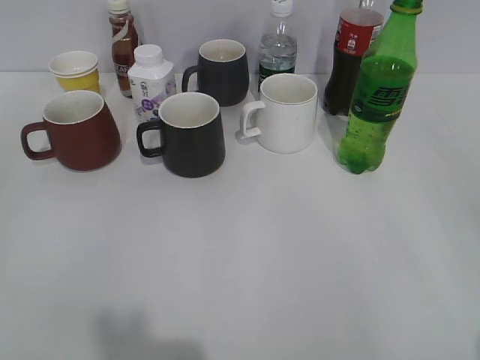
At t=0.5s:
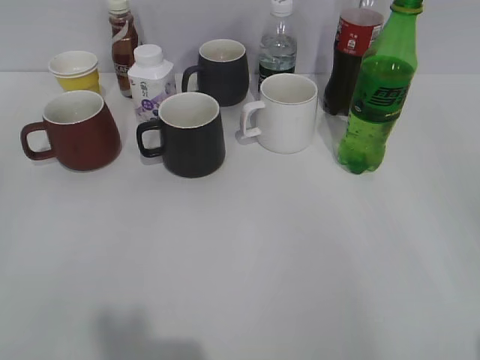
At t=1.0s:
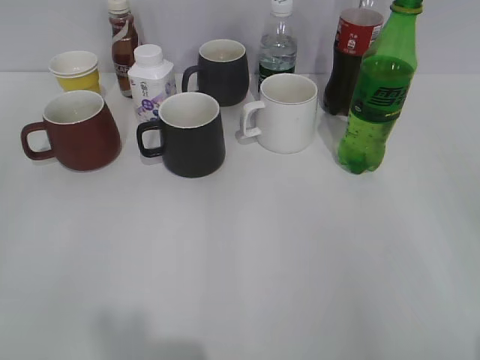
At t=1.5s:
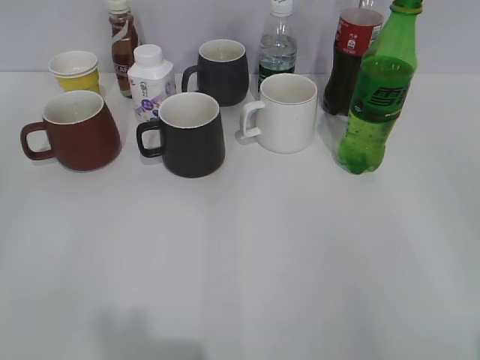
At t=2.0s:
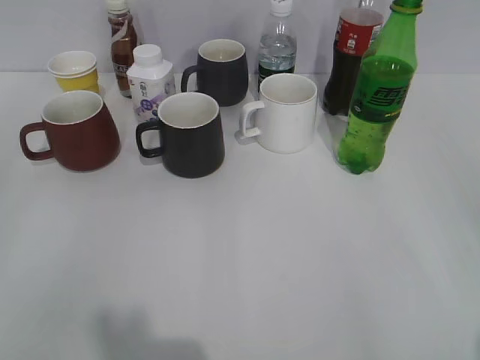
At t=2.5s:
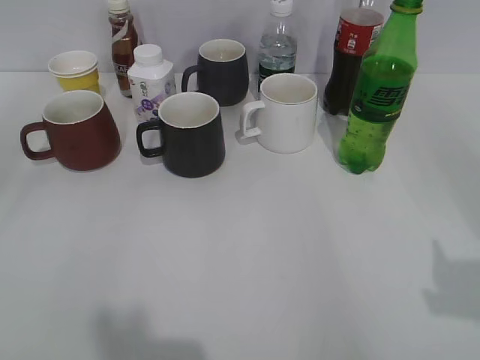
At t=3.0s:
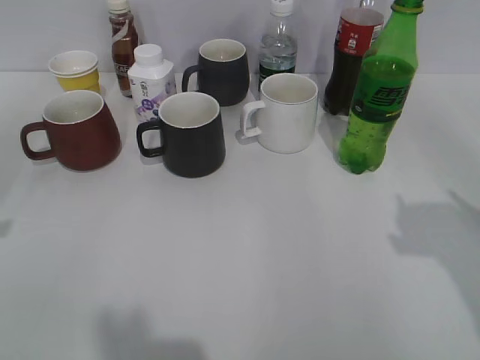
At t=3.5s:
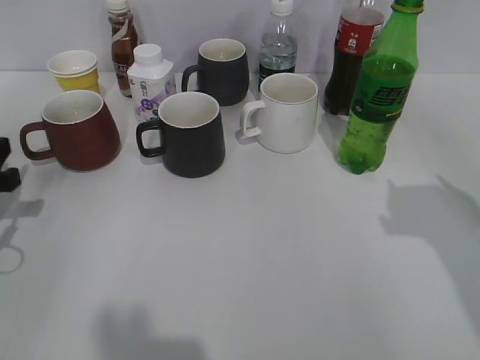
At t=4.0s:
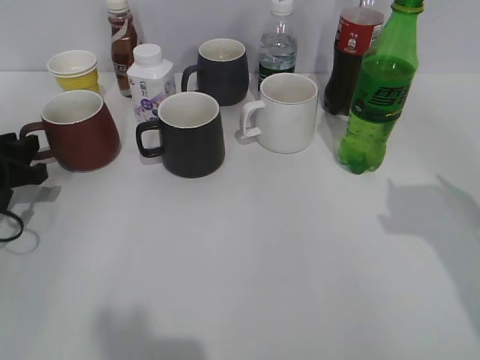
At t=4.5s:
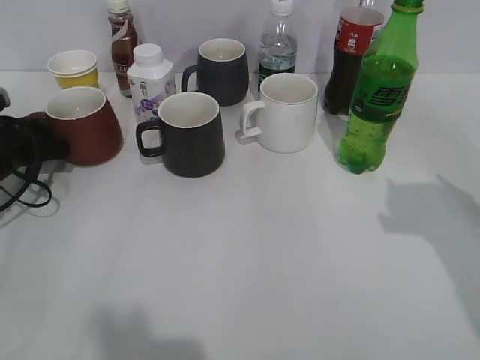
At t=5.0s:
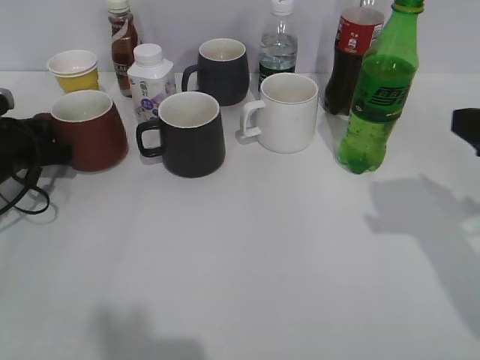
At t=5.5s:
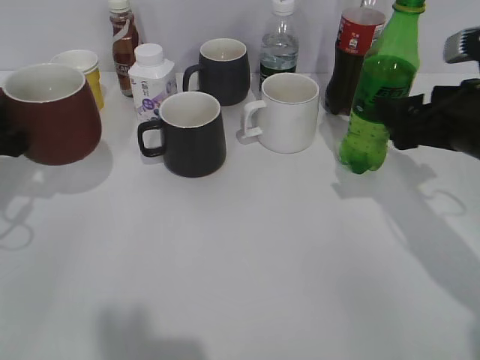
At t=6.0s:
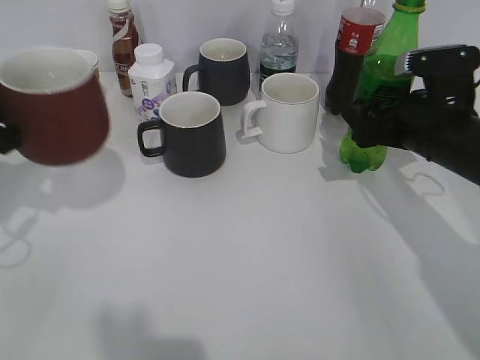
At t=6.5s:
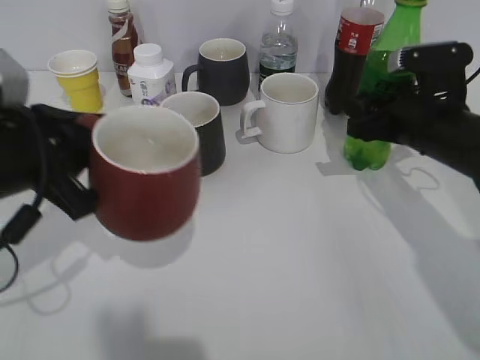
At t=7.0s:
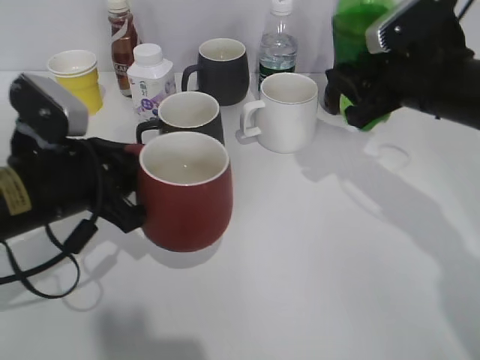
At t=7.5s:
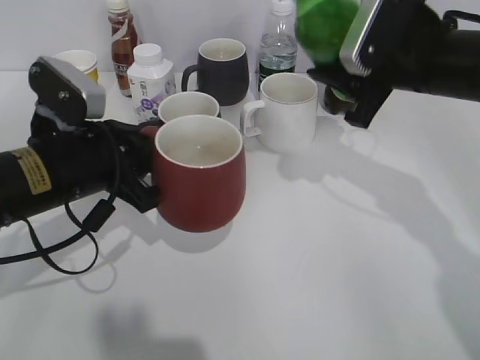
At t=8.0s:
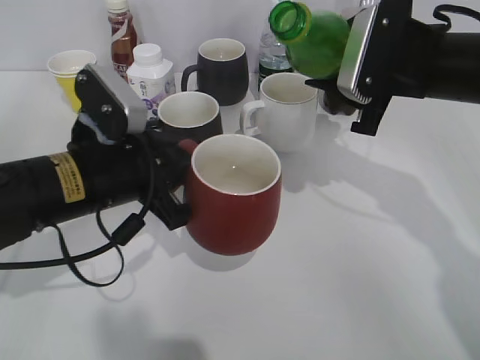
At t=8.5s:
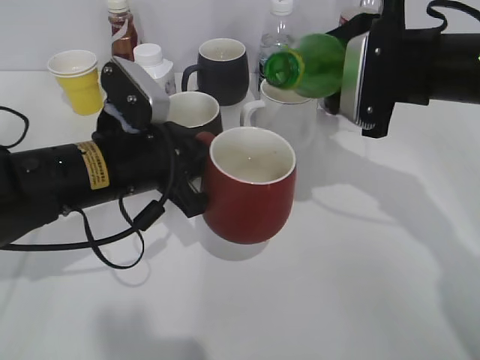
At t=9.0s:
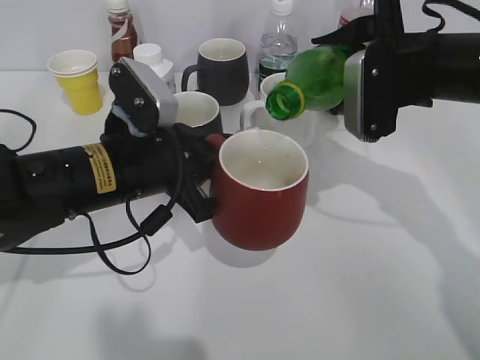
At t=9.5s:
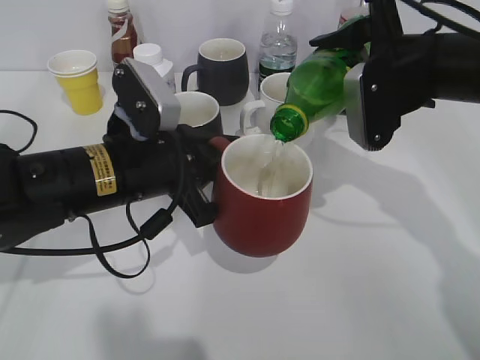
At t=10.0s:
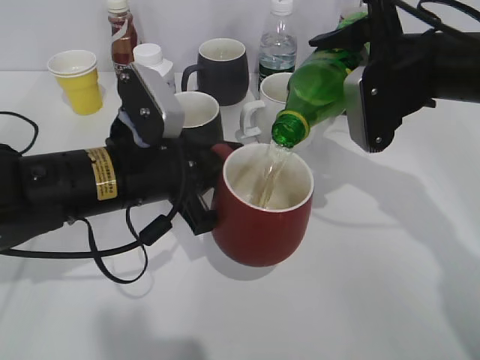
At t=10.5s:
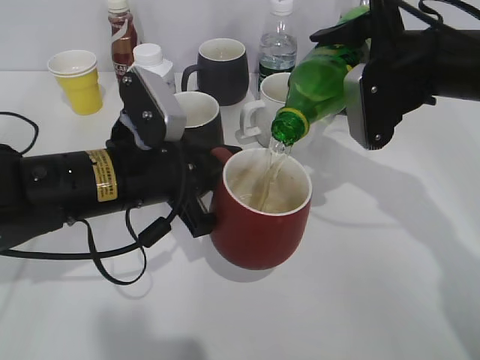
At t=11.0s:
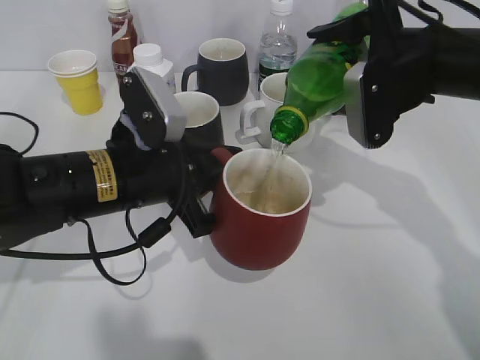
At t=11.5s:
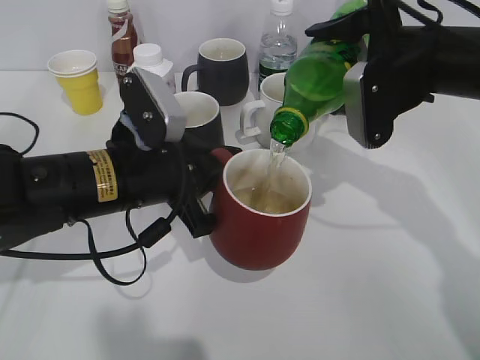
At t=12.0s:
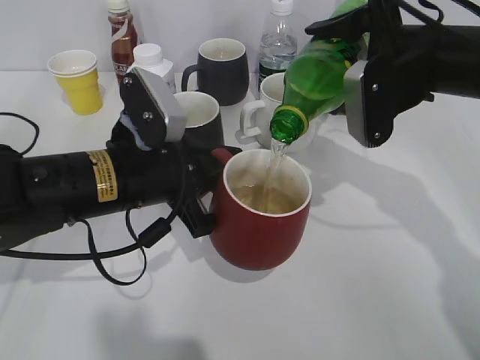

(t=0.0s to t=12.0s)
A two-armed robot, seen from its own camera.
Step, t=2.0s - t=4.5s: Grasp the red cup with left gripper.
Step, t=5.0s - t=6.0s: Grasp the bottle with sprite with right gripper.
t=2.0s - t=4.0s: The right gripper moves forward, roughly 20 cm. The left gripper moves forward and downward, approximately 35 cm.
t=4.0s - t=6.0s: The right gripper heads forward, downward and to the left, covering approximately 20 cm; the left gripper heads upward, covering some 10 cm, and closes up.
t=6.0s - t=8.0s: The left gripper moves to the right, roughly 15 cm, while the right gripper travels upward by roughly 10 cm, and closes up.
t=10.0s - t=12.0s: Both grippers stay about where they are.

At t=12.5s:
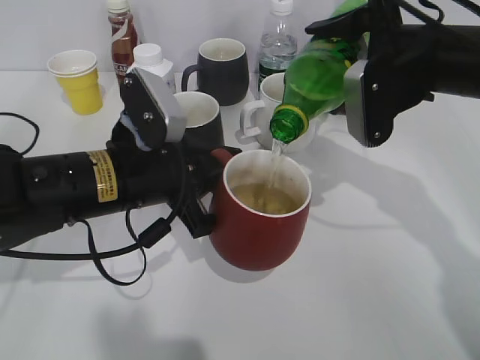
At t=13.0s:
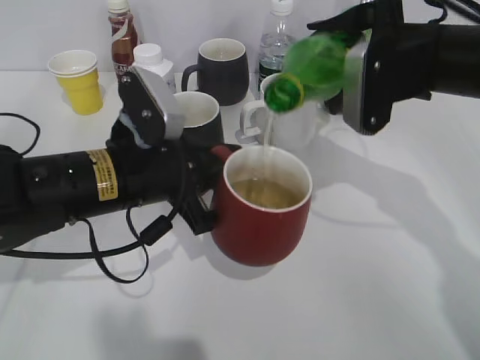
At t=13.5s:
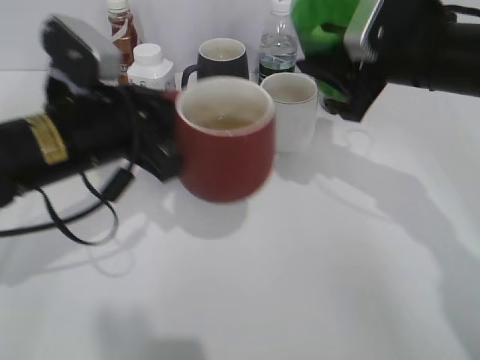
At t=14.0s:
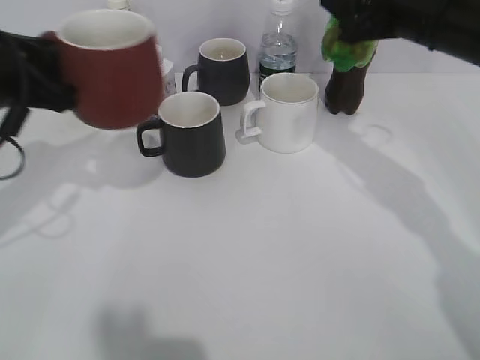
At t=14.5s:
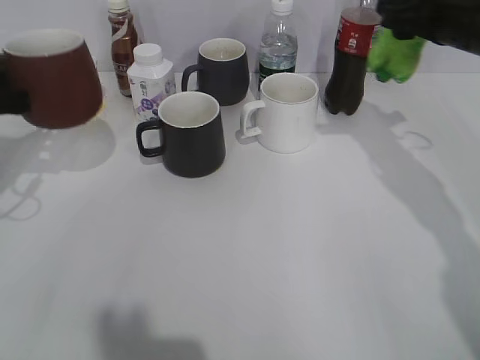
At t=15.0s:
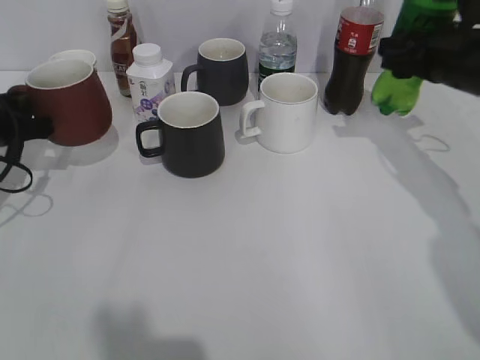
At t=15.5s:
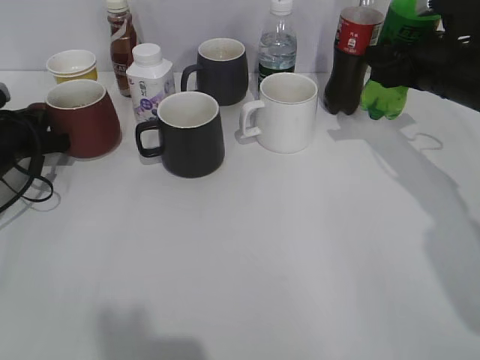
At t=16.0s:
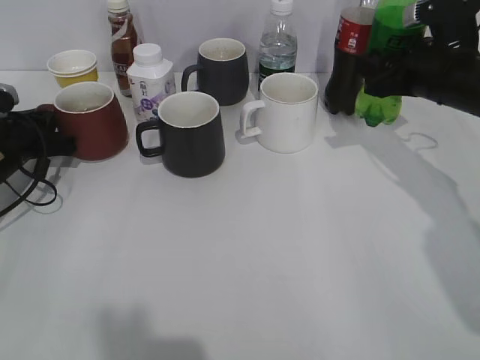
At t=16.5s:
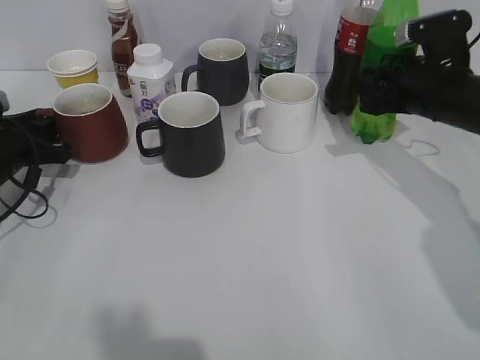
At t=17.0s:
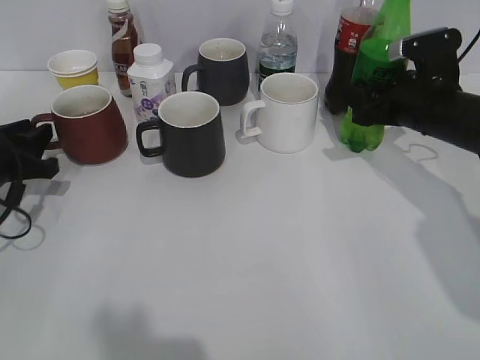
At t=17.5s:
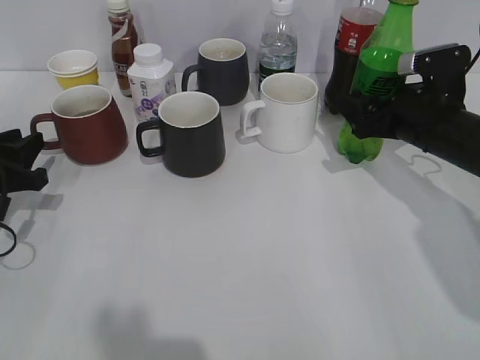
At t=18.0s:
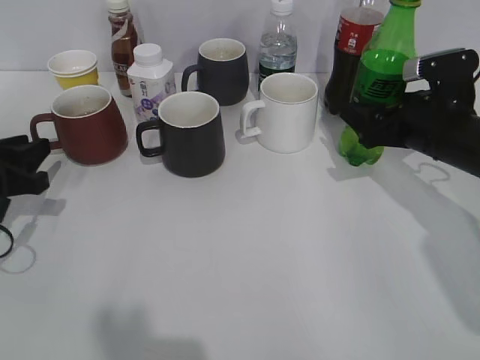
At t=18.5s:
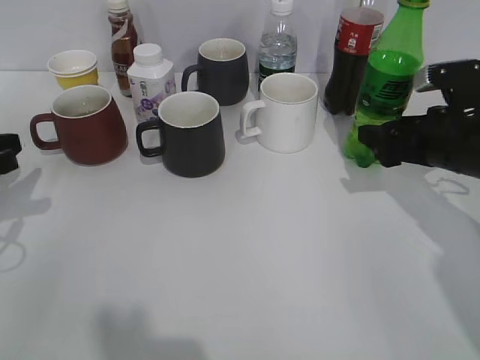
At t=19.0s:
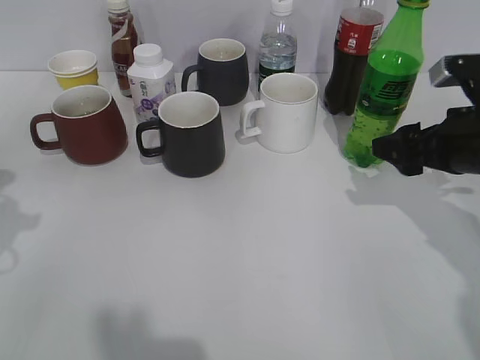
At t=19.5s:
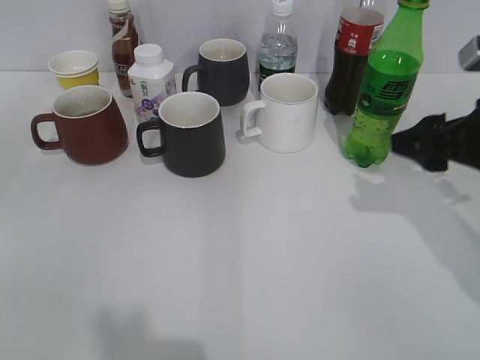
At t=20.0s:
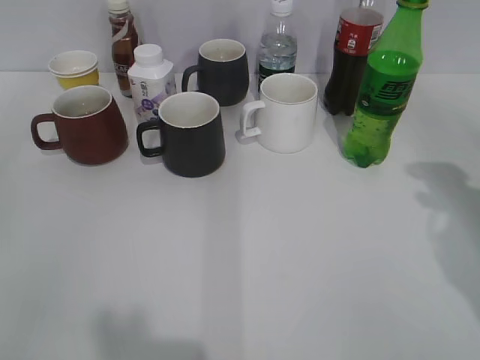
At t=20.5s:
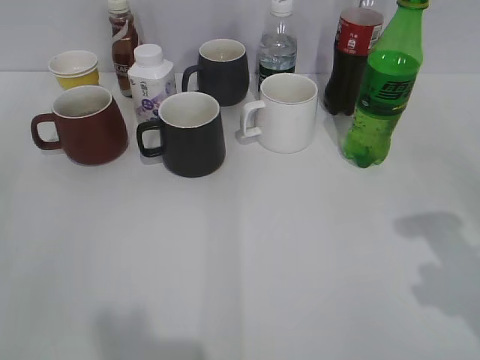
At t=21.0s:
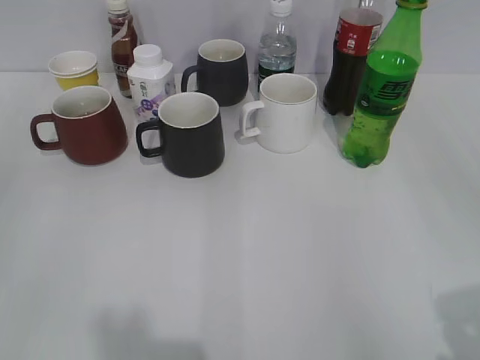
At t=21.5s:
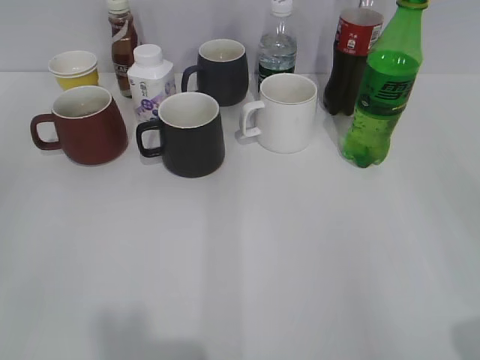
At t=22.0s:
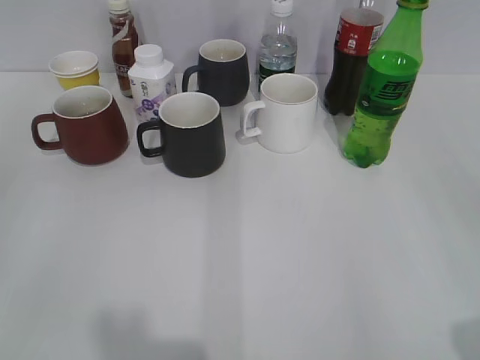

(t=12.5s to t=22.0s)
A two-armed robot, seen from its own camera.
Step, t=13.5s - t=14.0s: Place the red cup on the table with left gripper.
Step, t=14.5s - t=18.5s: Place the sprite bottle on the table with right gripper.
t=12.5s - t=14.5s: The left gripper goes about 20 cm to the left, while the right gripper travels to the right by about 5 cm.
t=14.5s - t=16.5s: The two grippers go approximately 10 cm downward. The left gripper opens.
t=16.5s - t=18.0s: The right gripper opens its fingers; the left gripper heads backward, covering approximately 5 cm.
t=18.0s - t=20.0s: The right gripper heads backward, upward and to the right, covering some 15 cm; the left gripper travels backward and upward by about 30 cm.
t=20.0s - t=22.0s: The right gripper goes some 25 cm backward.

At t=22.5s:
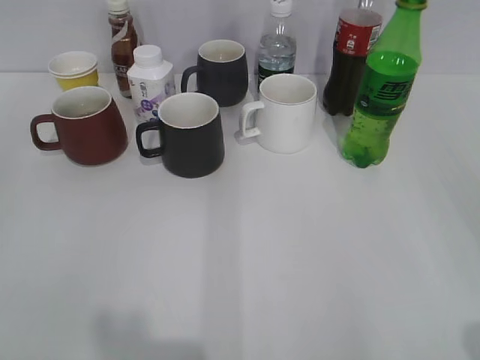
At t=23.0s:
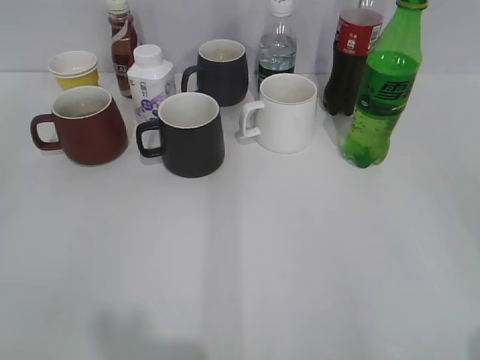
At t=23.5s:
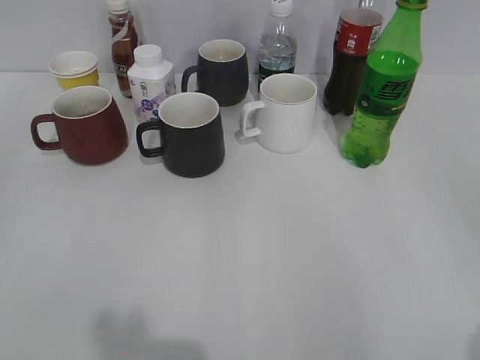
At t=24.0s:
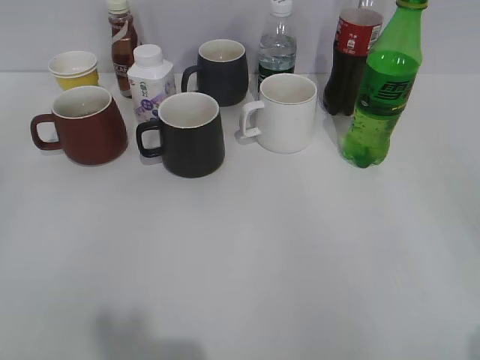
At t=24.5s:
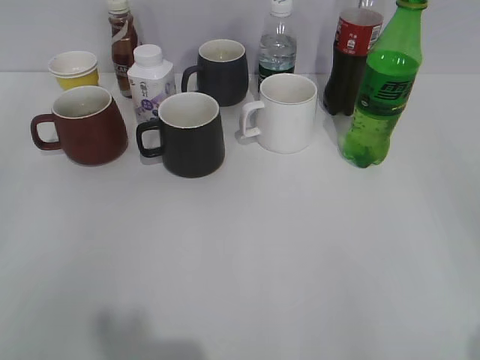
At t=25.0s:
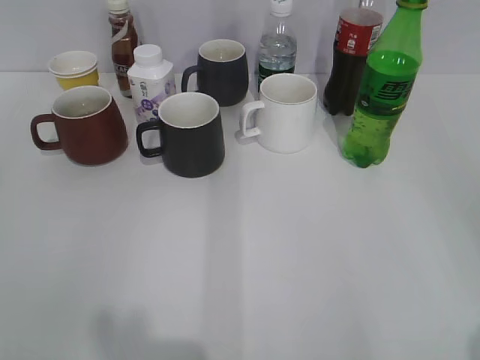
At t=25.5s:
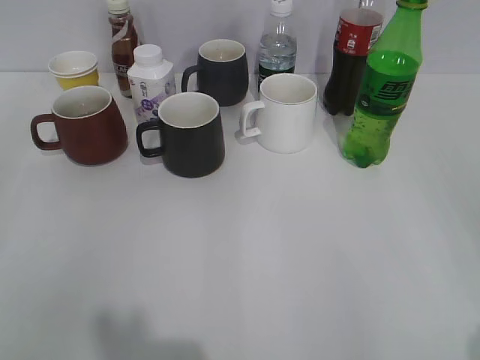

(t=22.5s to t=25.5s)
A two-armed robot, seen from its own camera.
t=22.5s - t=25.5s: The two grippers keep their place.
